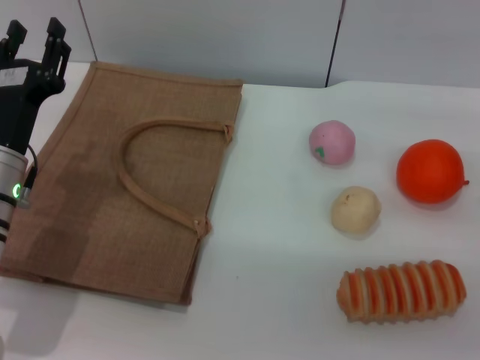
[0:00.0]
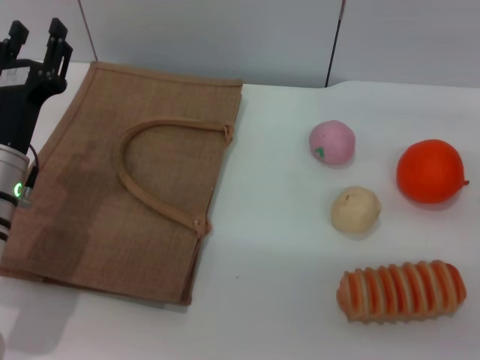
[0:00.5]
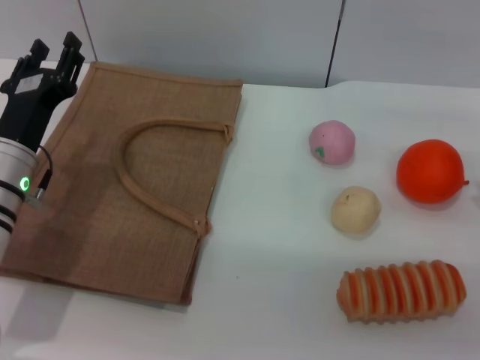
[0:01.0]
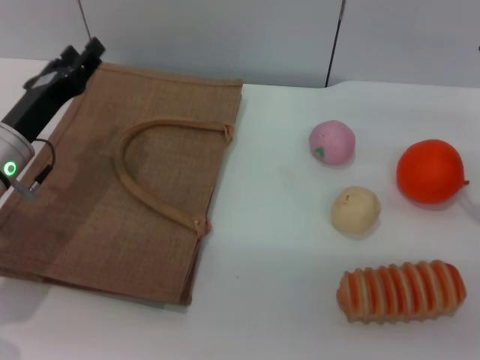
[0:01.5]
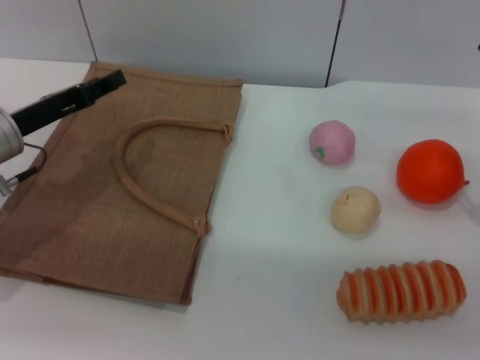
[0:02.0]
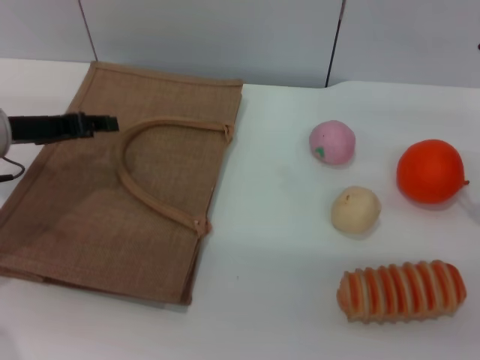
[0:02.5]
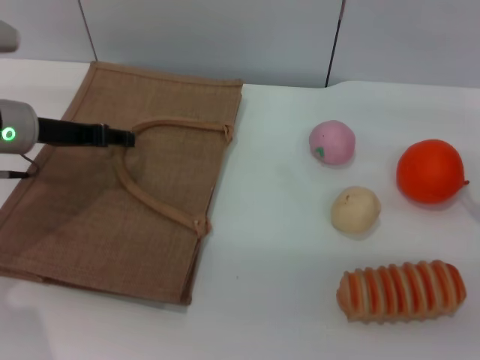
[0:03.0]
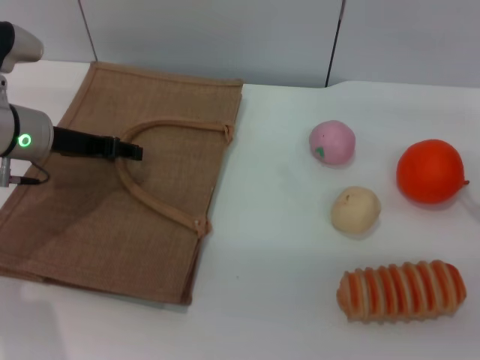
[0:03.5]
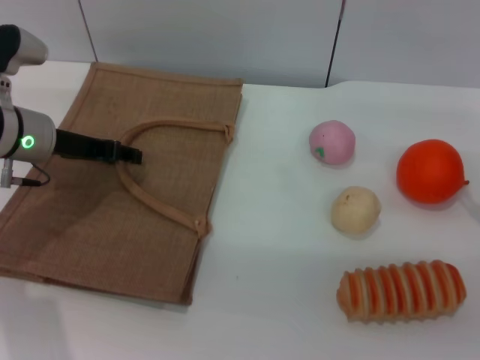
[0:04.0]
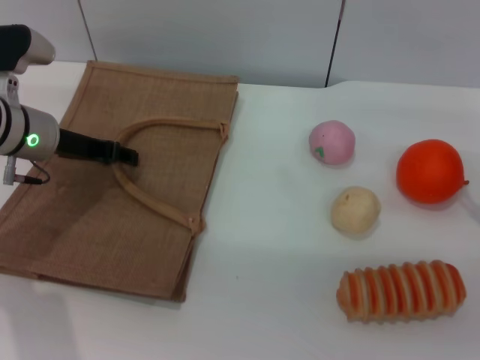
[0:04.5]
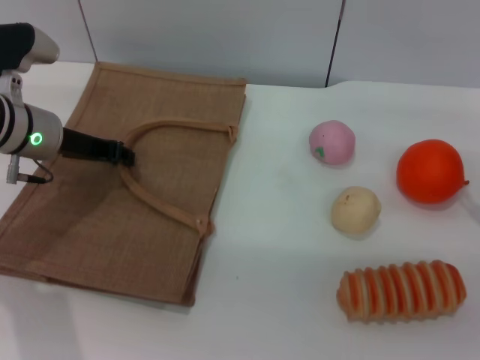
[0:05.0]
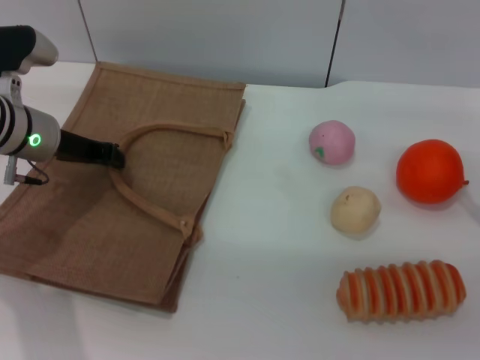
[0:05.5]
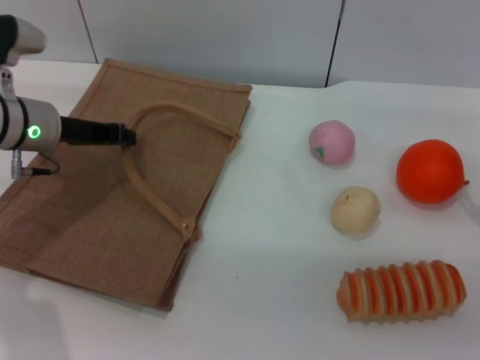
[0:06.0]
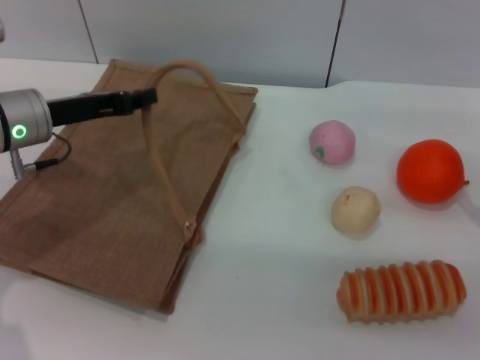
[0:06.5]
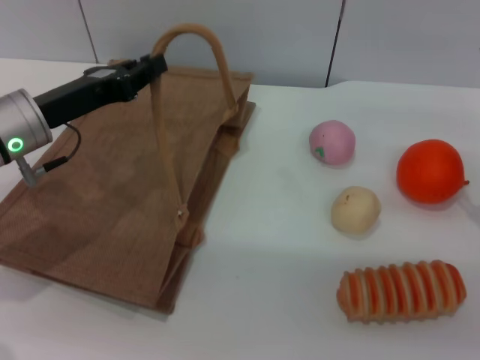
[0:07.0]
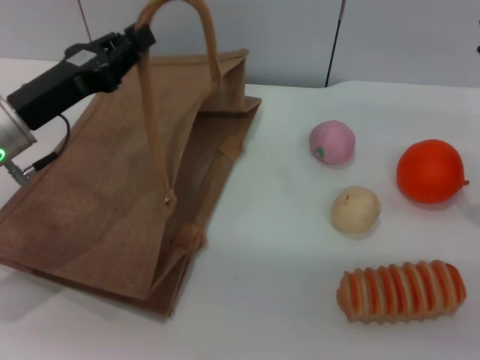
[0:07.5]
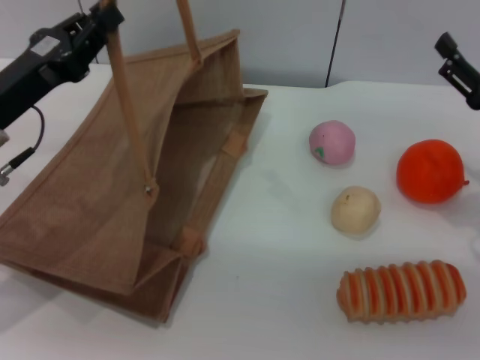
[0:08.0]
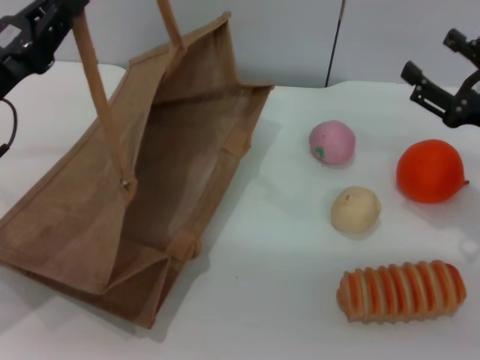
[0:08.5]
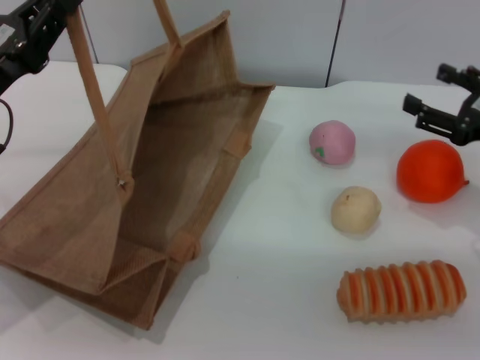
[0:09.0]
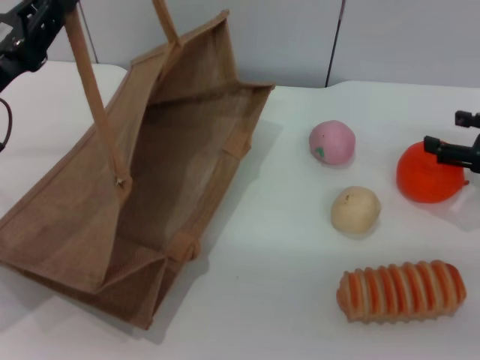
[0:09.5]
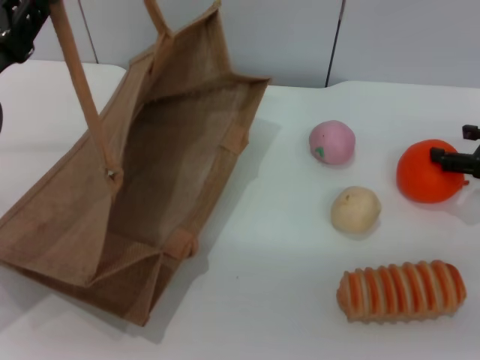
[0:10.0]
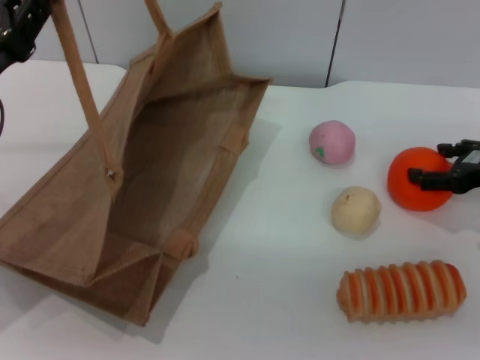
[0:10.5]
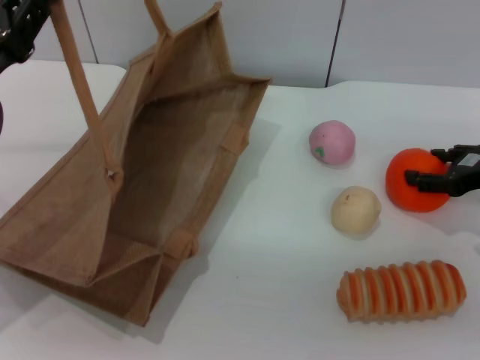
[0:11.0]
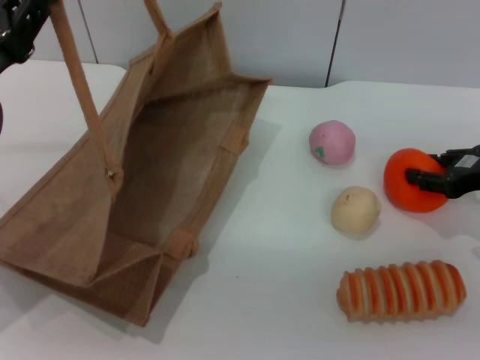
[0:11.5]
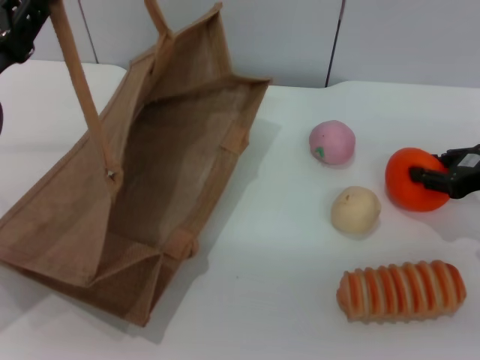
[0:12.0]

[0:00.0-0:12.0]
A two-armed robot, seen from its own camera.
Task of the whole recording: pick up the orange and peach from the table and place it in the brown handbag.
Step, 0:00.0 to 0:07.0: Lift the woven bag with the left gripper to open it.
0:00.0 to 0:02.0: The left gripper travels forward by approximately 5 cm.
0:04.0 to 0:06.0: The left gripper closes its fingers.
0:06.0 to 0:08.0: The left gripper travels backward by approximately 10 cm.
0:08.0 to 0:10.0: The right gripper shifts by about 5 cm.
0:10.0 to 0:12.0: The right gripper closes up.

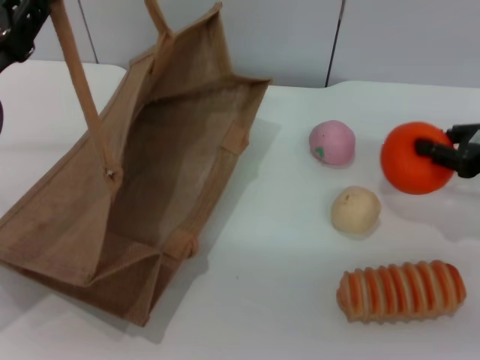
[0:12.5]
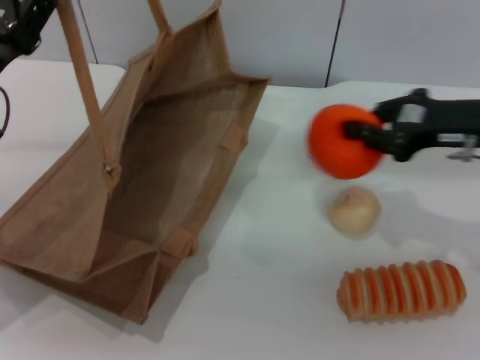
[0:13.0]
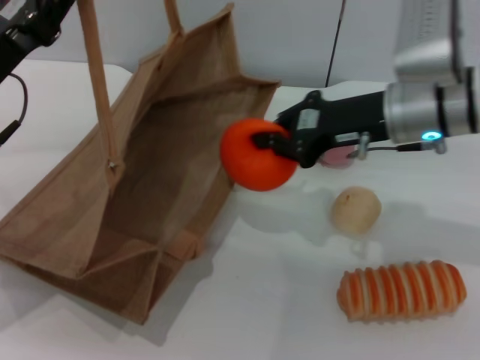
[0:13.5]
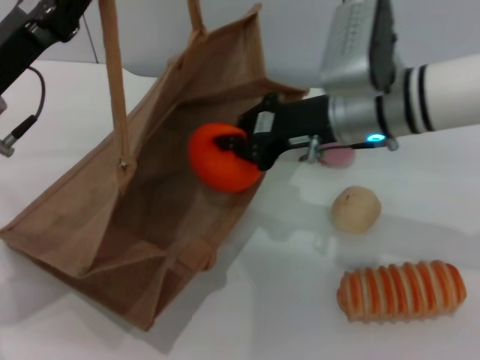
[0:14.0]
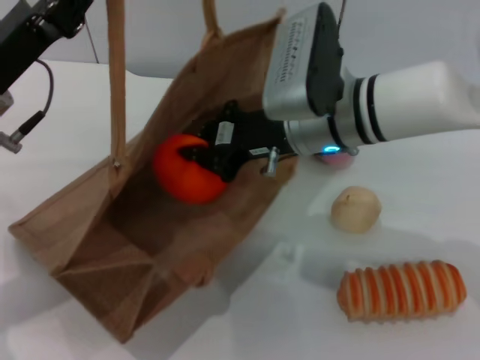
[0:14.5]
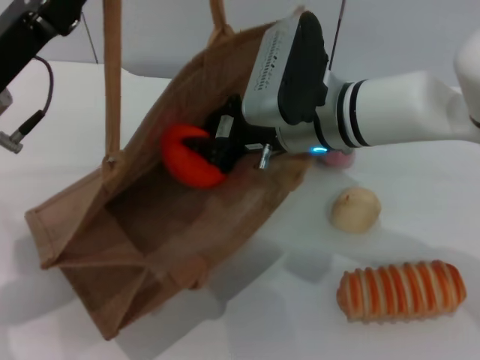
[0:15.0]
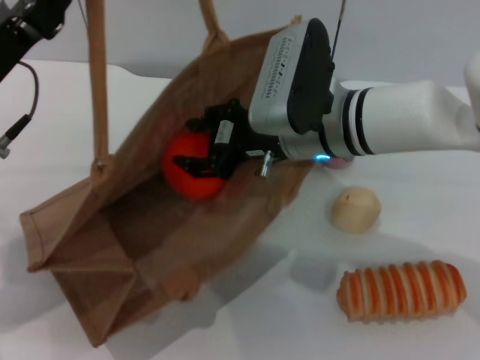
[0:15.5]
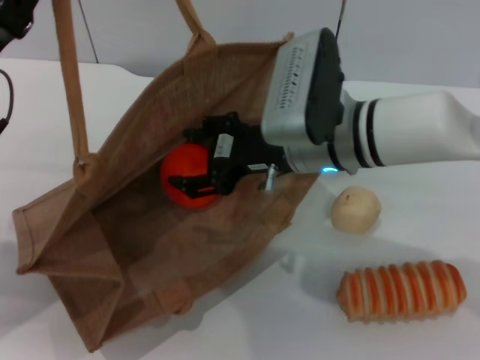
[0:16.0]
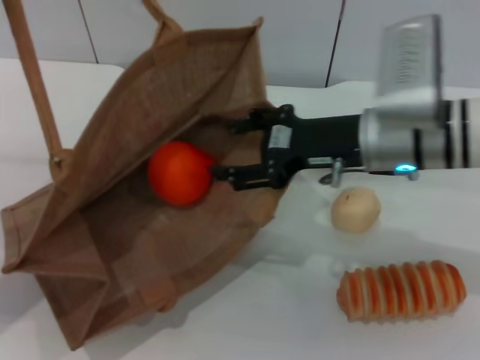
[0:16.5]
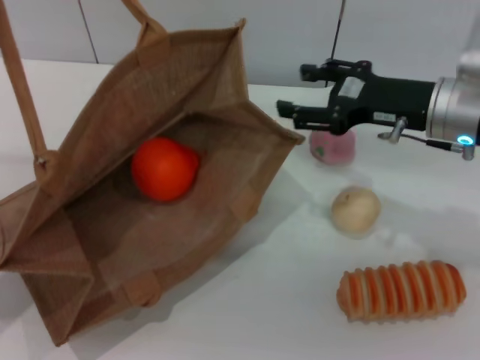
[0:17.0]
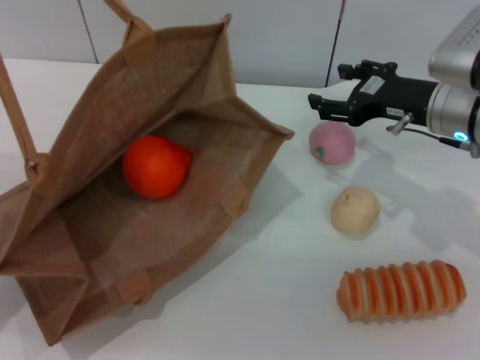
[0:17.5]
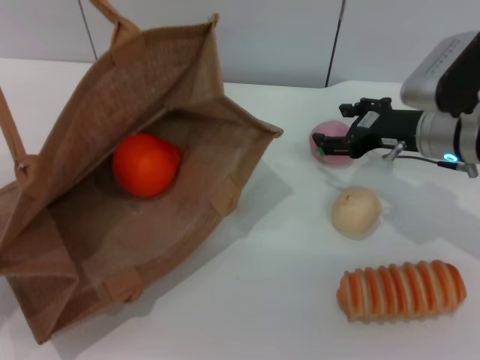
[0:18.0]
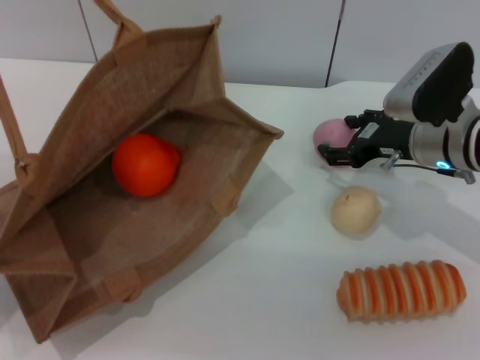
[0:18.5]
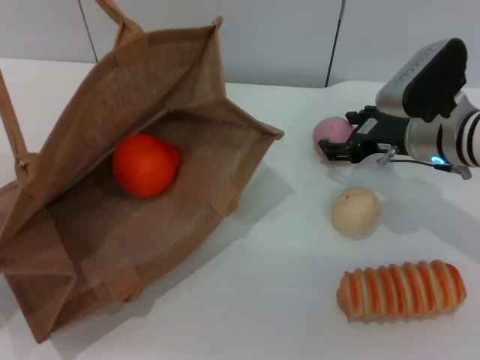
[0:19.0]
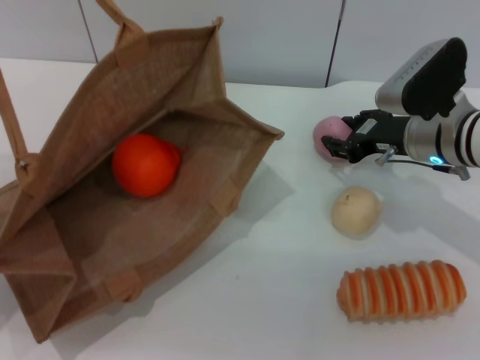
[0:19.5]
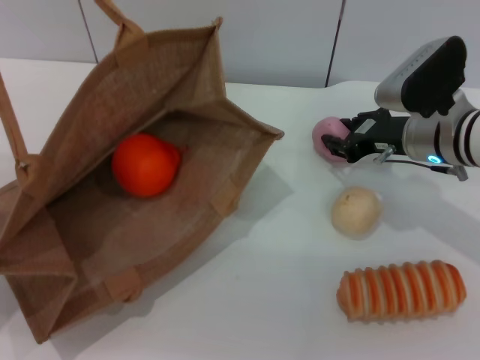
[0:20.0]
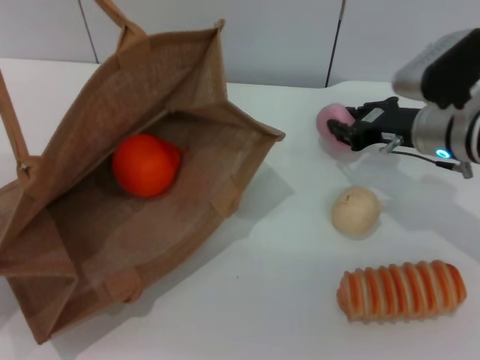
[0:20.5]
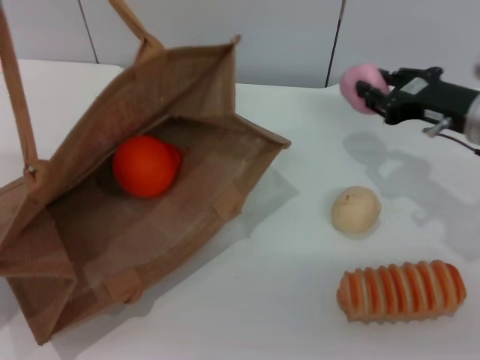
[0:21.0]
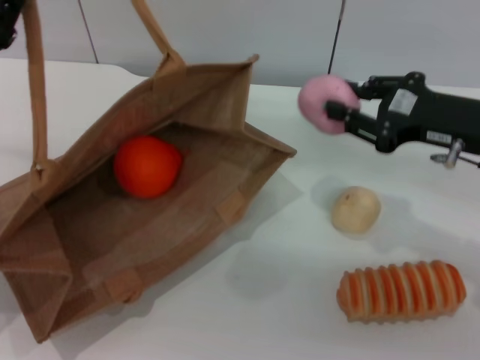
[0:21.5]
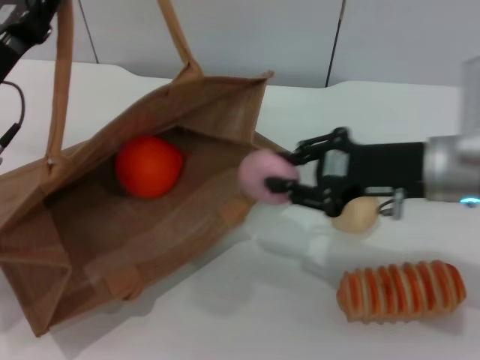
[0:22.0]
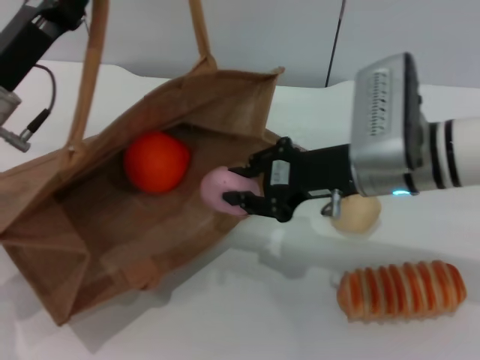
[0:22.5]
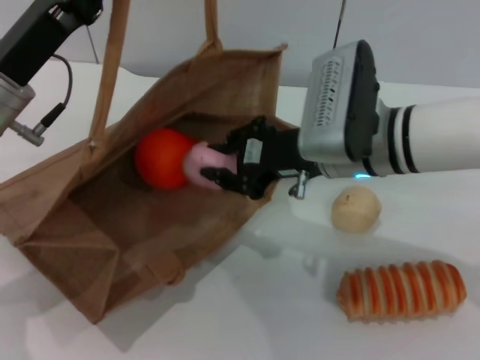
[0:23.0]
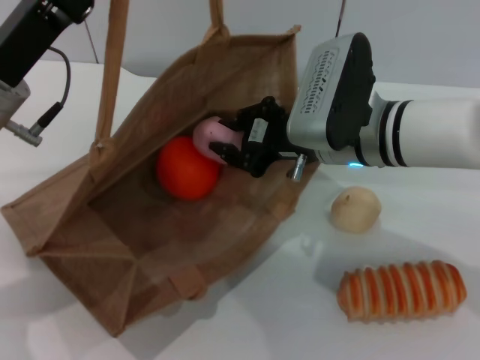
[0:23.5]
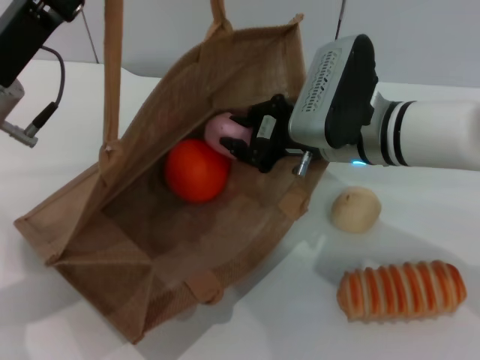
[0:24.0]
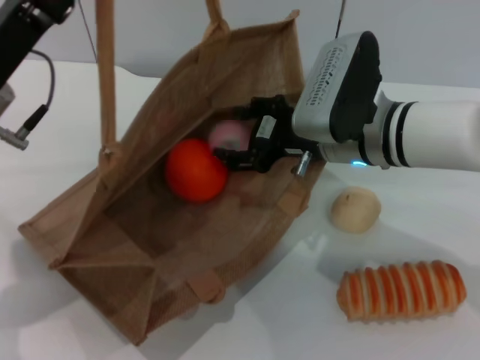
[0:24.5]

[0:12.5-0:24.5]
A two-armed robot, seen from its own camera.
Task of the whole recording: pick up the orange and peach from the table and place it in the brown handbag.
Step, 0:13.0 to 0:16.5: Place the orange into the woven bag with the right gripper.
Step, 0:17.0 to 0:20.5: Pick up the peach with the right gripper.
0:12.5 to 0:14.5: The right gripper moves to the left, about 25 cm; the left gripper shifts by roughly 5 cm.
0:14.5 to 0:16.5: The right gripper goes some 5 cm to the right, and opens its fingers, while the left gripper changes place by about 5 cm.
0:16.5 to 0:18.5: The right gripper moves to the right and downward, roughly 10 cm.
0:18.5 to 0:20.5: The right gripper closes its fingers.
0:20.5 to 0:22.5: The right gripper heads to the left and backward, covering some 10 cm. Meanwhile the left gripper moves to the right and forward, some 10 cm.

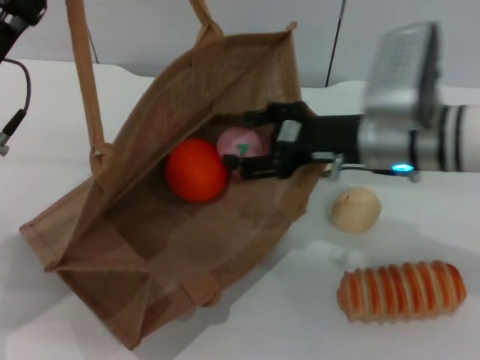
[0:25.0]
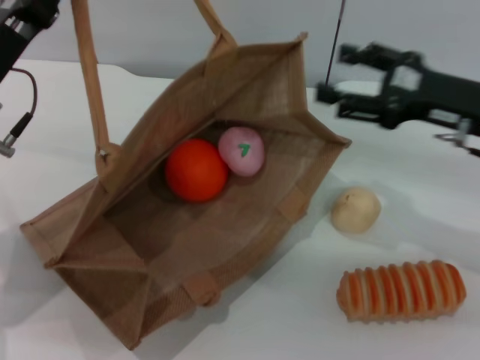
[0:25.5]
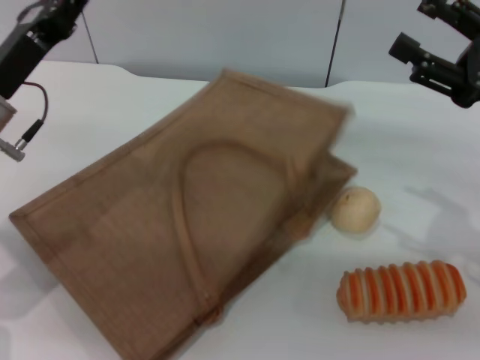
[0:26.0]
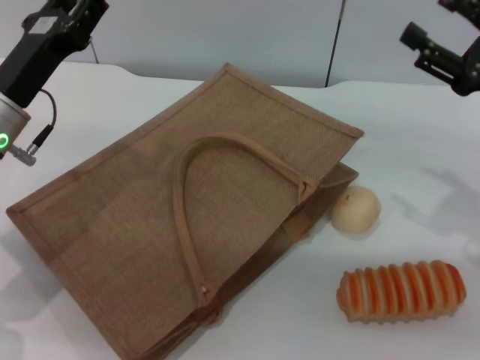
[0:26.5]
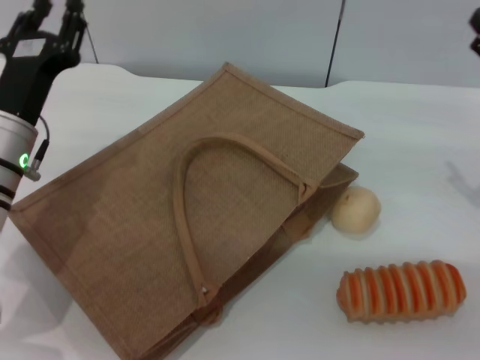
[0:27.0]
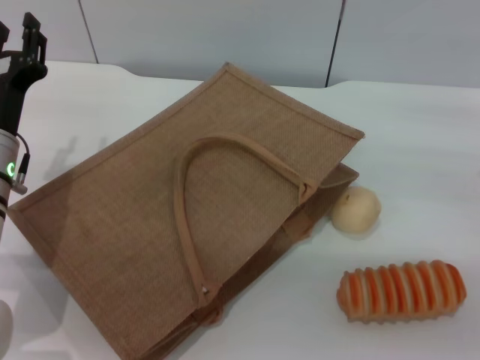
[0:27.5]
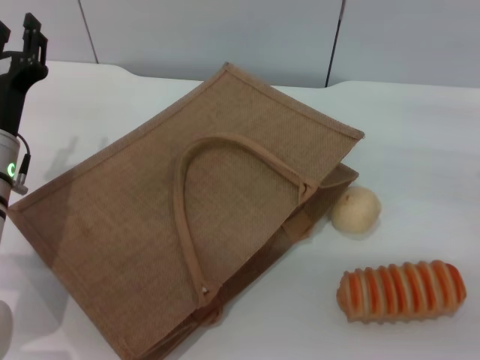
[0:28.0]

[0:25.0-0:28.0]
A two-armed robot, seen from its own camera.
Task of the whole recording: pick up the orange and peach from the table and place it in the brown handbag.
0:25.0 to 0:26.5: The left gripper opens up, while the right gripper shifts some 15 cm to the right.
0:26.5 to 0:28.0: The right gripper moves about 5 cm.
